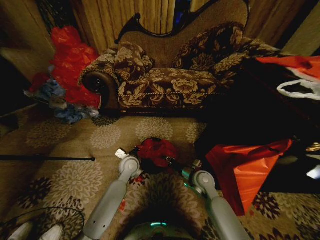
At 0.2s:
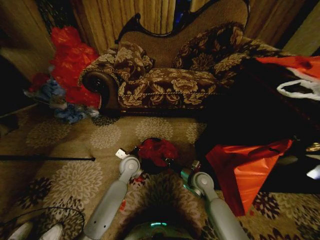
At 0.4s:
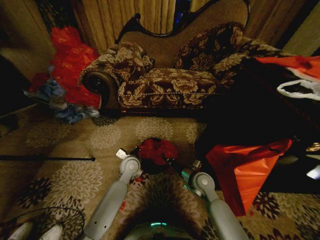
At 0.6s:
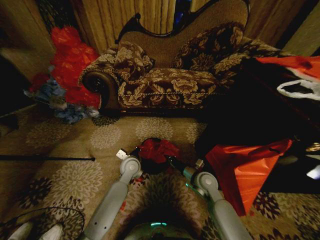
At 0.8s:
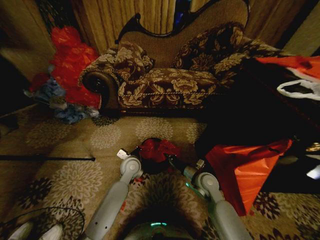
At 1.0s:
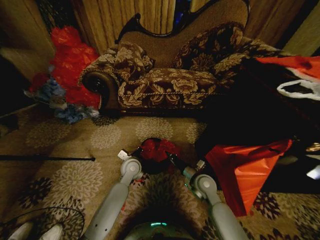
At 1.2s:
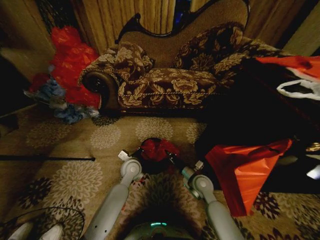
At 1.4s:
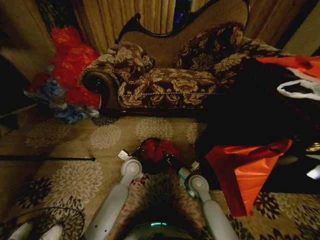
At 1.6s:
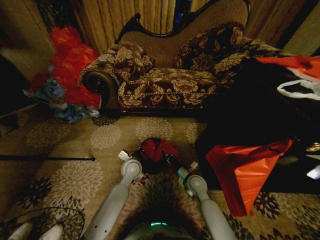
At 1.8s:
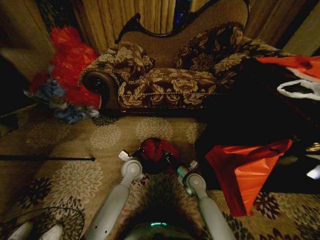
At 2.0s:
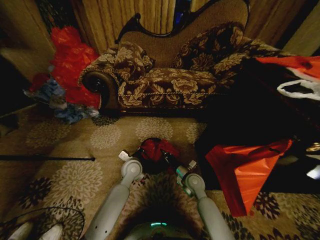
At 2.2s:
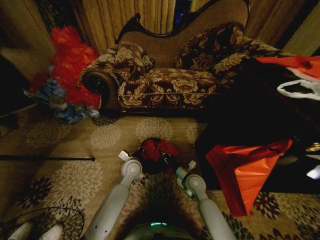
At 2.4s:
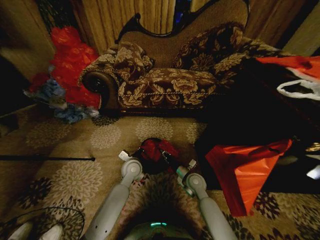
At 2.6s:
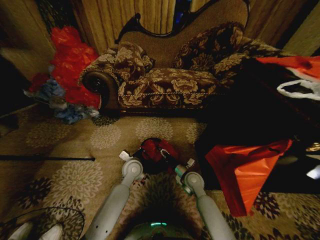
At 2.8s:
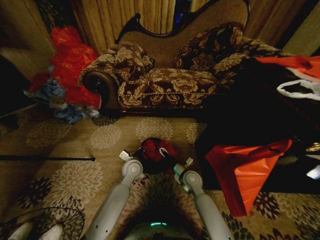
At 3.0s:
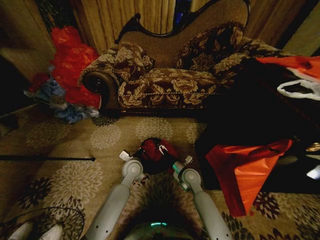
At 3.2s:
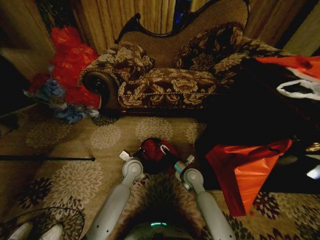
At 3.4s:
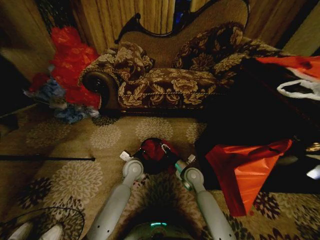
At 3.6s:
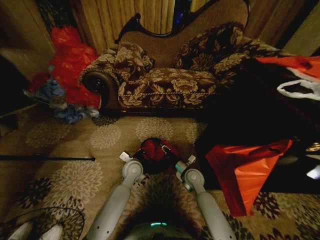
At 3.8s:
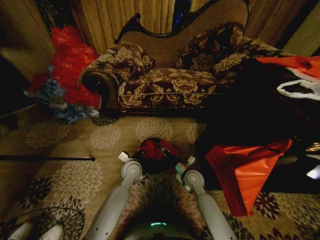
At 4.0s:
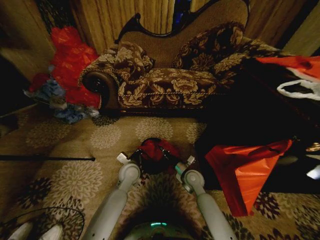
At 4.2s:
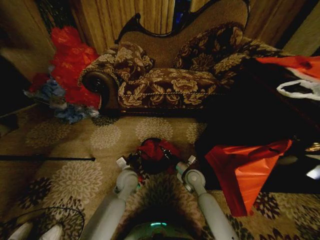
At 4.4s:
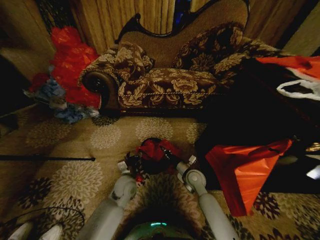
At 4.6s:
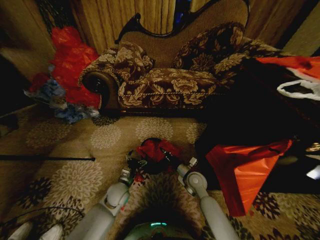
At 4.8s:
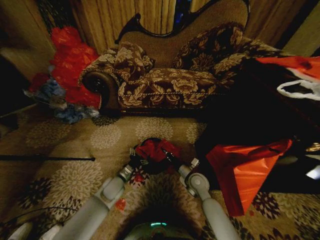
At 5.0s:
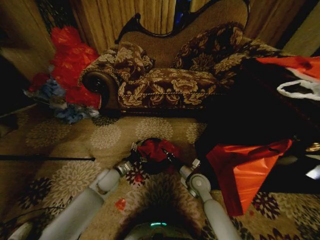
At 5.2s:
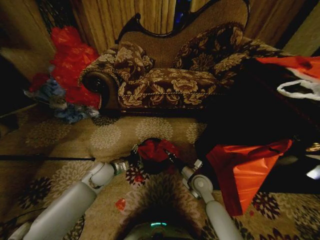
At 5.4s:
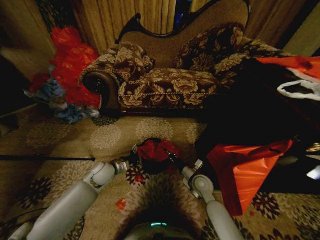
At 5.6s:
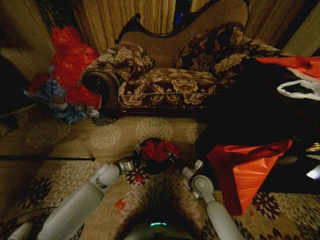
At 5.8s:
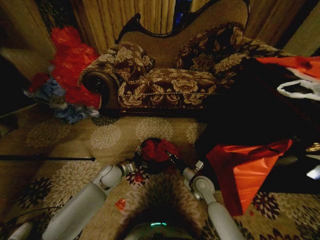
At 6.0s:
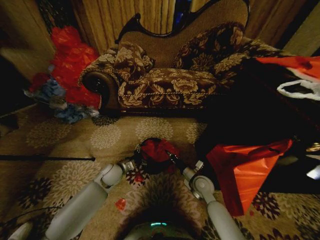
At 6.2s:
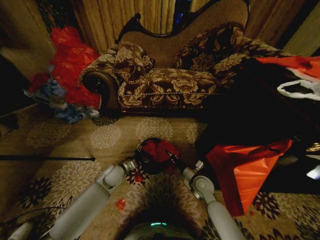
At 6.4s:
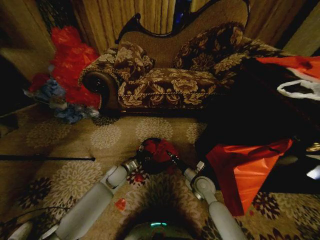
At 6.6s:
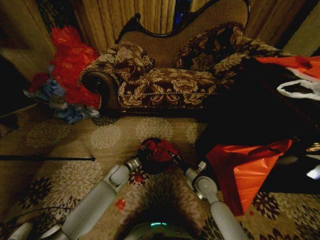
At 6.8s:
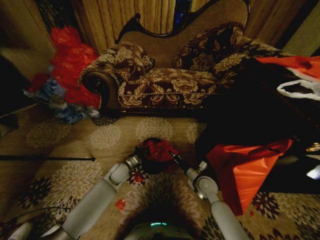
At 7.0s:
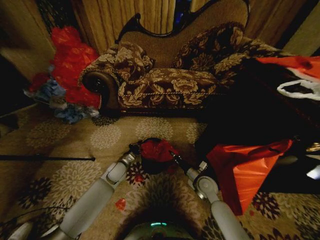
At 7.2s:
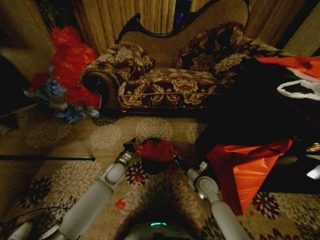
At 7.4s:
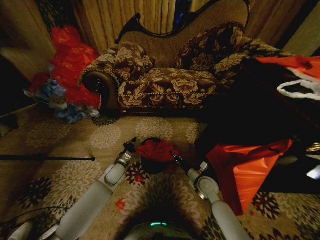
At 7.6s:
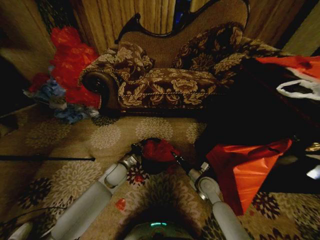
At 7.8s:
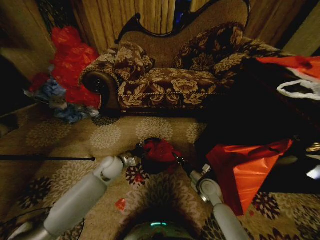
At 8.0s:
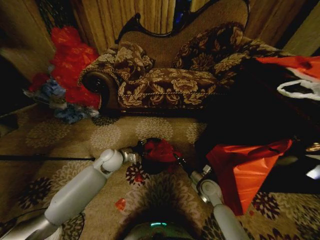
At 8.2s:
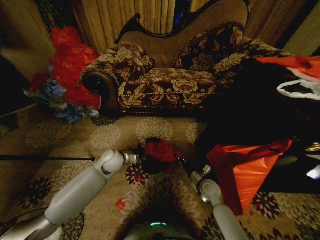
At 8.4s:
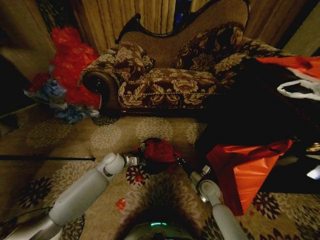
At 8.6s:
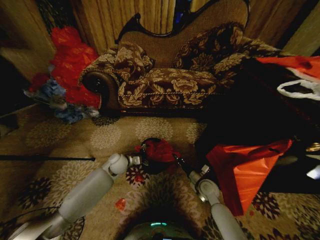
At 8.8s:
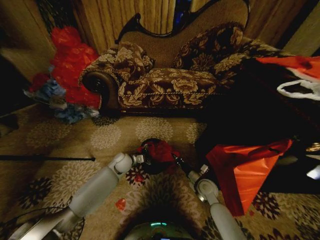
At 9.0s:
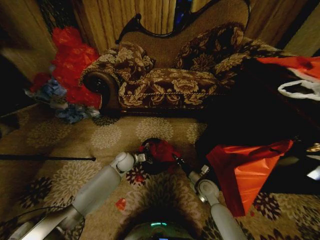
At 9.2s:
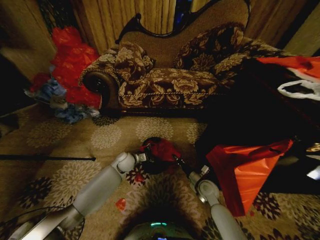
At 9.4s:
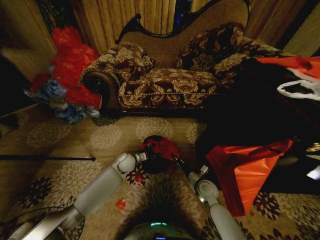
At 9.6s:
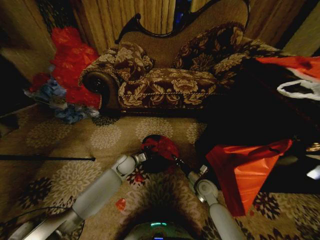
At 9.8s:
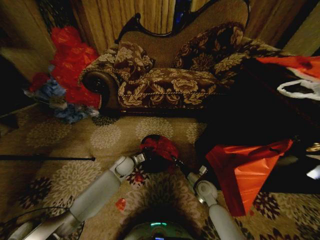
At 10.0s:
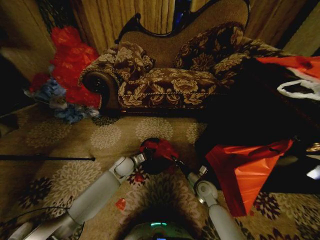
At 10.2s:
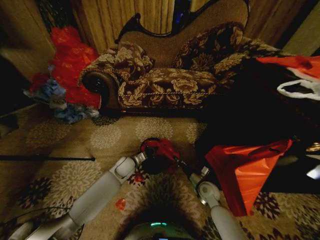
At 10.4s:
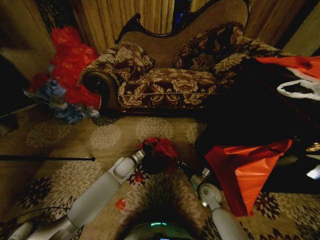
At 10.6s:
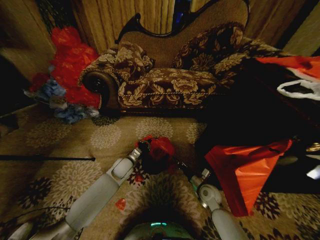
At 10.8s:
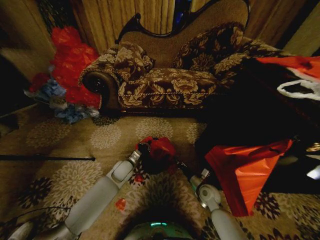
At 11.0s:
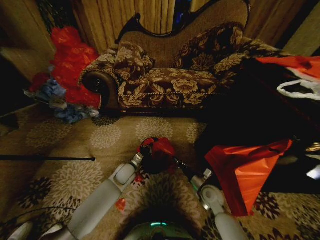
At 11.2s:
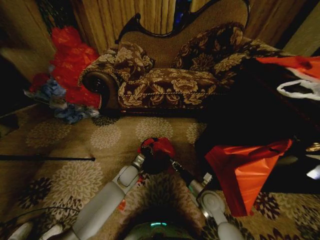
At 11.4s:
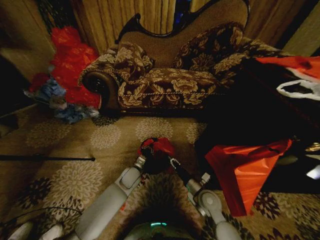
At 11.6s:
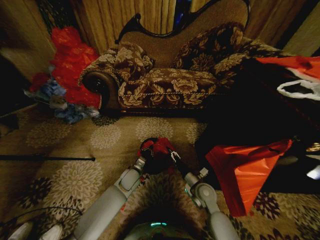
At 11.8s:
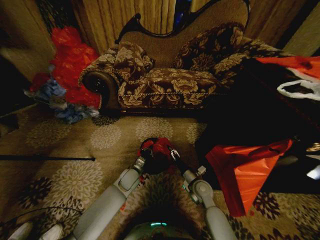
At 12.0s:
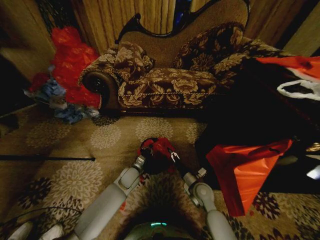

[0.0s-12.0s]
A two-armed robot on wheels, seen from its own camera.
Task of the whole recording: Place a garbage bag over the trash bin.
0.0s to 1.6s: The right gripper closes its fingers.
1.6s to 3.0s: The right gripper opens.
3.0s to 4.4s: The left gripper shifts approximately 10 cm downward and backward, and opens. Meanwhile the right gripper closes.
4.4s to 6.0s: The left gripper shifts about 10 cm to the left and forward.
6.0s to 7.6s: The left gripper closes up.
7.6s to 9.0s: The left gripper heads forward, covering approximately 10 cm, moves about 5 cm upward and comes back, and opens up.
9.0s to 10.4s: The left gripper closes its fingers.
10.4s to 12.0s: The left gripper moves some 5 cm. The right gripper changes place by some 5 cm, and opens.

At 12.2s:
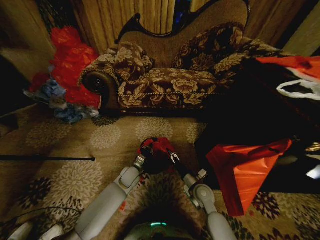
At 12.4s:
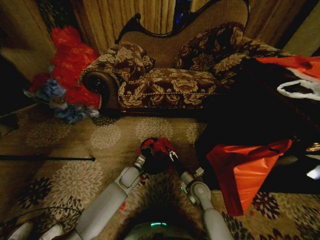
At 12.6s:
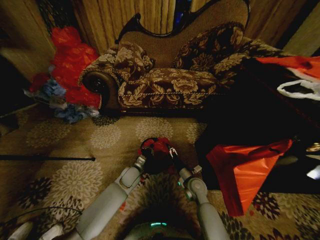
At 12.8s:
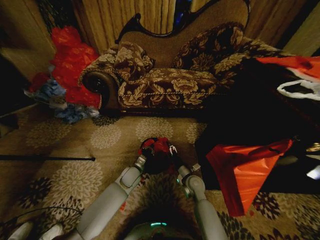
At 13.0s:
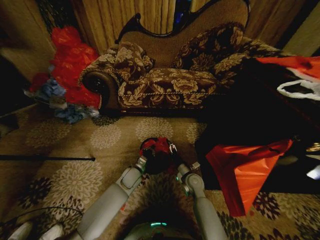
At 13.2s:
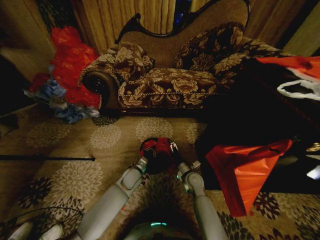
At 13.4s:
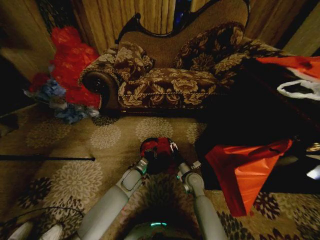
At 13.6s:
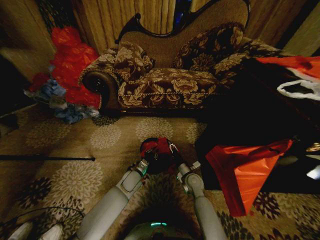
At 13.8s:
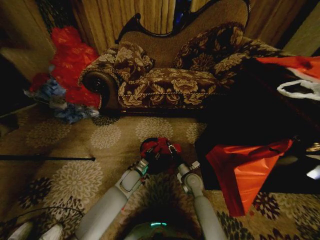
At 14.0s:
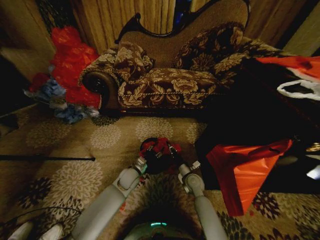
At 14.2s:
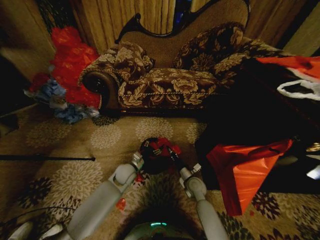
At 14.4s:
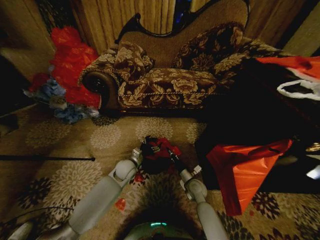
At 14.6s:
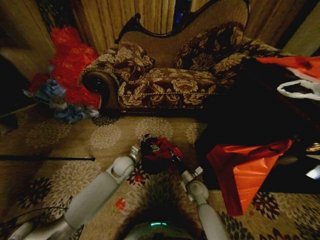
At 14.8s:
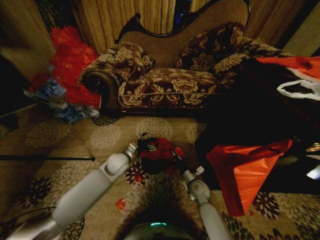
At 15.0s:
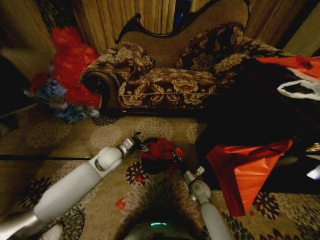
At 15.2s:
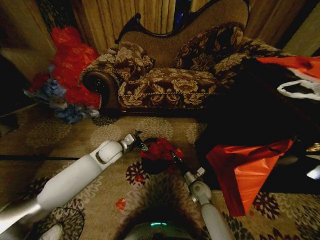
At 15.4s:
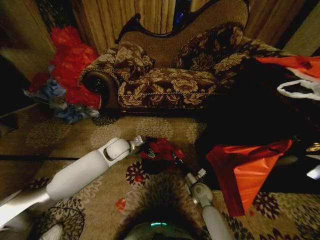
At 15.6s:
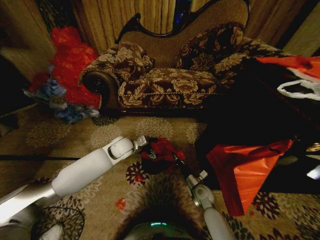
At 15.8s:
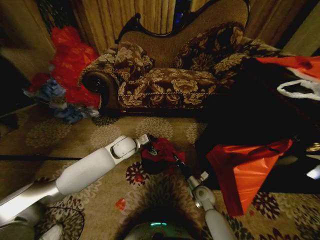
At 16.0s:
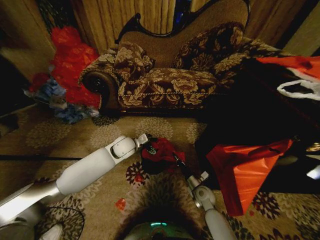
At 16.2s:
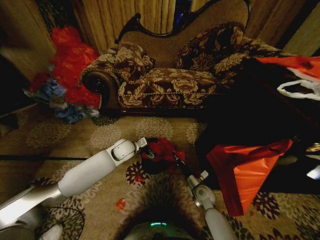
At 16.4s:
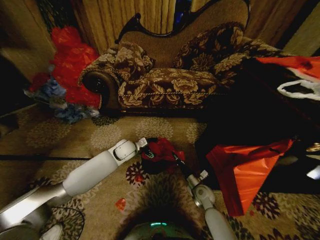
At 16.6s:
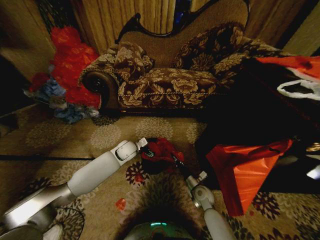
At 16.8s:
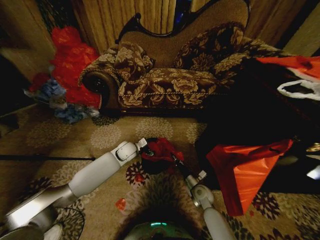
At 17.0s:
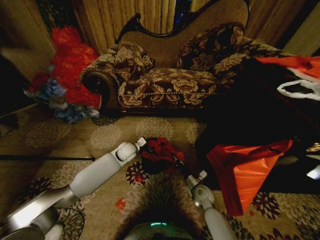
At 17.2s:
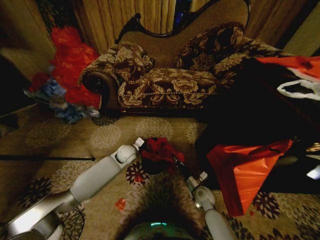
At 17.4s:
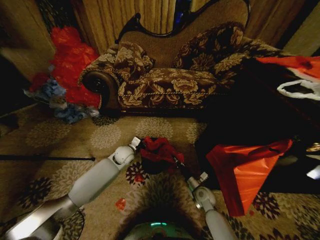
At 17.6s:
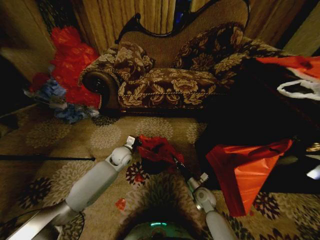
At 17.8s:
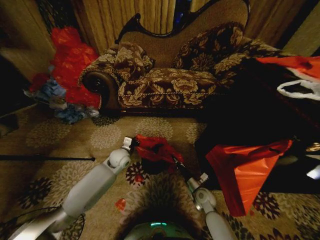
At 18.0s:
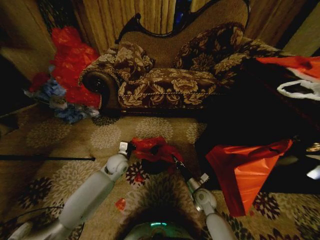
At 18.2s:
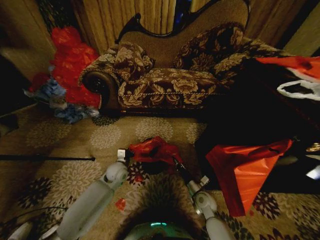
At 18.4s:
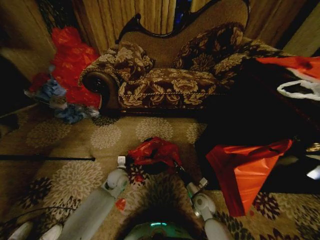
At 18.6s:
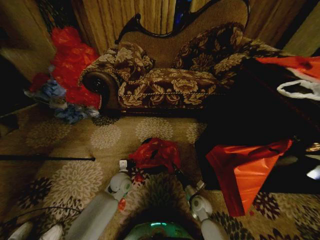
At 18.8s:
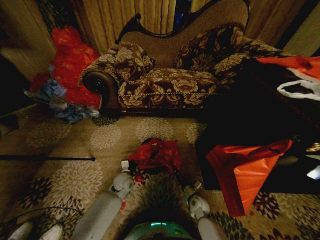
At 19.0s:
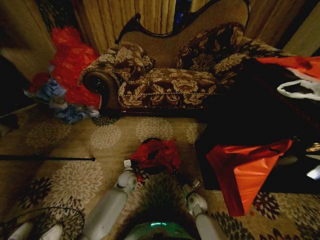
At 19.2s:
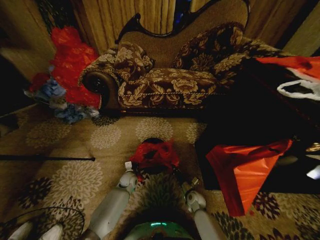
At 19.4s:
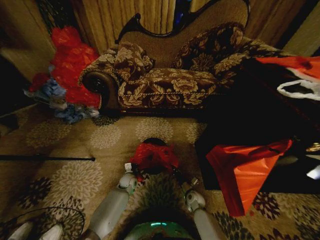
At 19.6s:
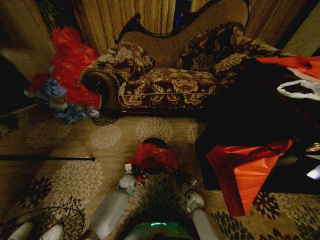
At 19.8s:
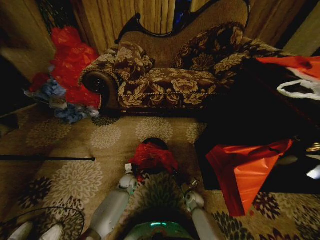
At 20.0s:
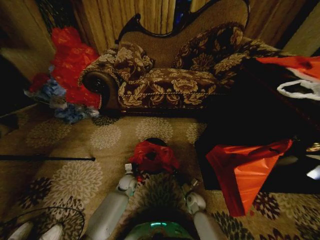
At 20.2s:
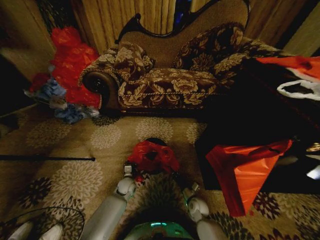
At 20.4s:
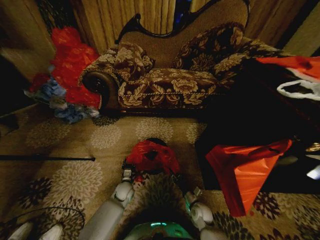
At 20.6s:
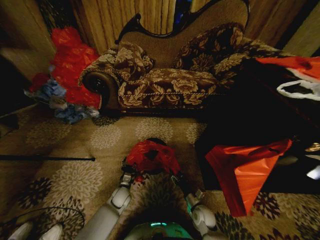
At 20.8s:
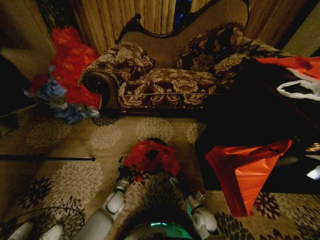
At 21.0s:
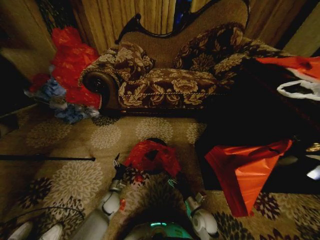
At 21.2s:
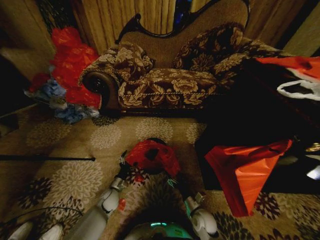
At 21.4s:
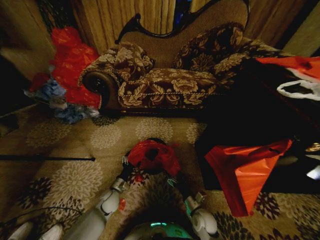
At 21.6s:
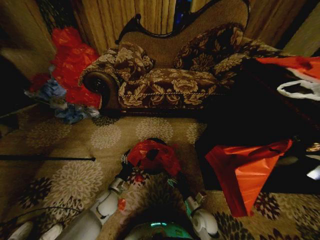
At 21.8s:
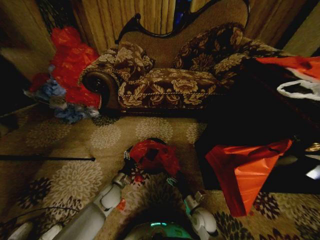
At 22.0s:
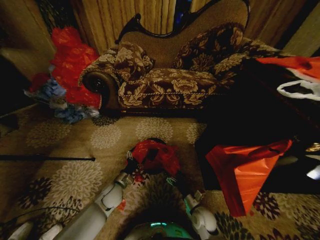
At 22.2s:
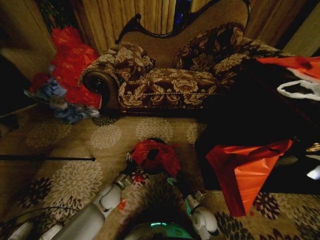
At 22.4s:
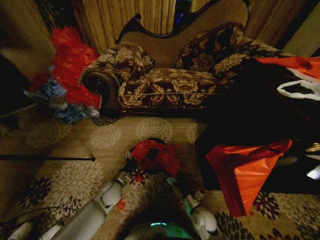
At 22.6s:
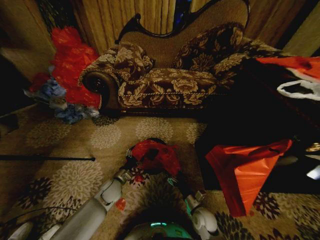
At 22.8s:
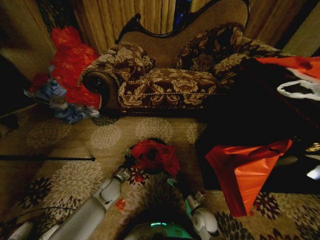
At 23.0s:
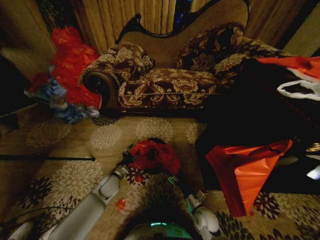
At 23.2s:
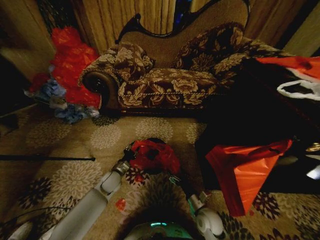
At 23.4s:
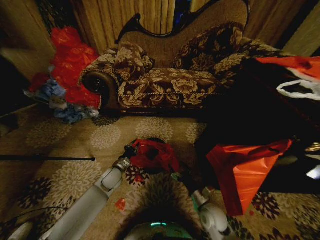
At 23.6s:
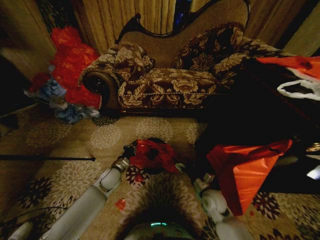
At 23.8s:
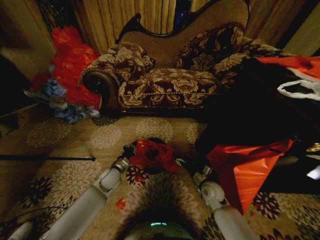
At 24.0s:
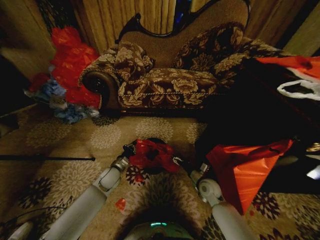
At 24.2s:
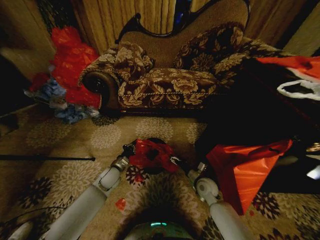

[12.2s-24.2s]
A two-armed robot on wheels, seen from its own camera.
Task of the whole recording: Place a garbage bag over the trash bin.
12.2s to 13.8s: The right gripper heads forward, covering about 5 cm, and closes up.
13.8s to 15.2s: The right gripper changes place by some 5 cm, and closes. Meanwhile the left gripper moves upward and to the left, approximately 20 cm, and opens up.
15.2s to 16.6s: The left gripper shifts by some 10 cm.
16.6s to 18.2s: The left gripper is displaced backward and downward by roughly 10 cm, and closes.
18.2s to 19.8s: Both grippers travel together downward, roughly 15 cm.
19.8s to 21.2s: The left gripper shifts about 10 cm backward and to the left, and opens. The right gripper shifts about 15 cm backward and upward, and opens.
21.2s to 22.6s: The left gripper is displaced upward by approximately 10 cm.
22.6s to 24.2s: The left gripper ends up roughly 5 cm from where it was, and closes, while the right gripper goes approximately 15 cm forward and upward.
